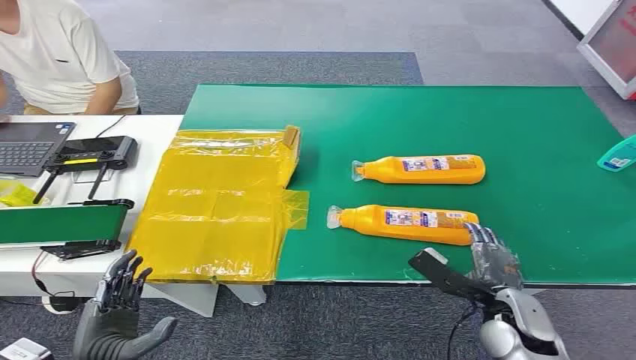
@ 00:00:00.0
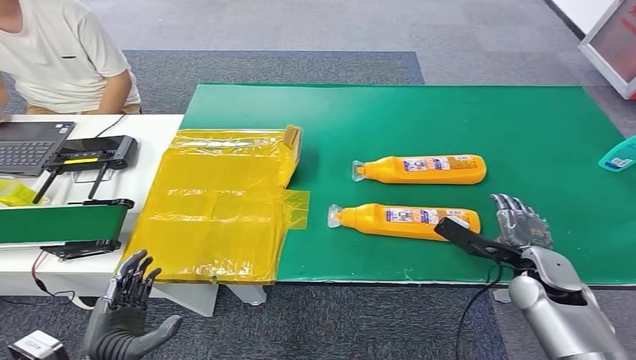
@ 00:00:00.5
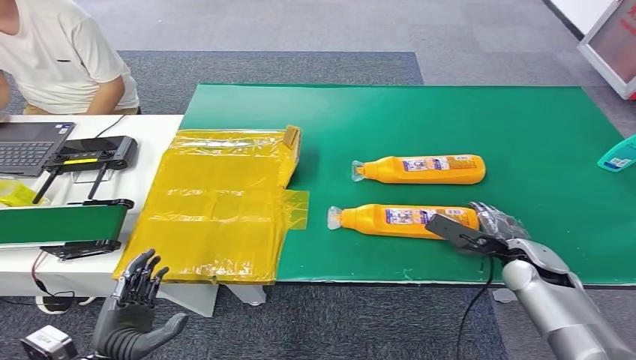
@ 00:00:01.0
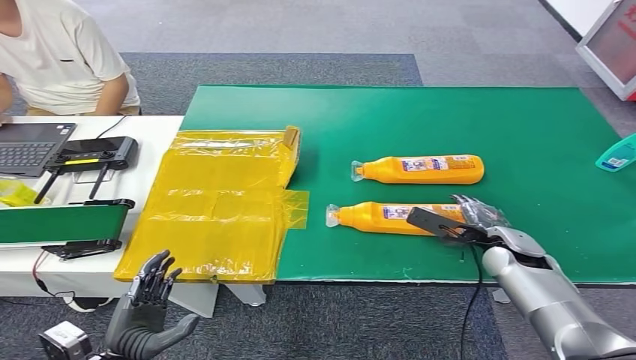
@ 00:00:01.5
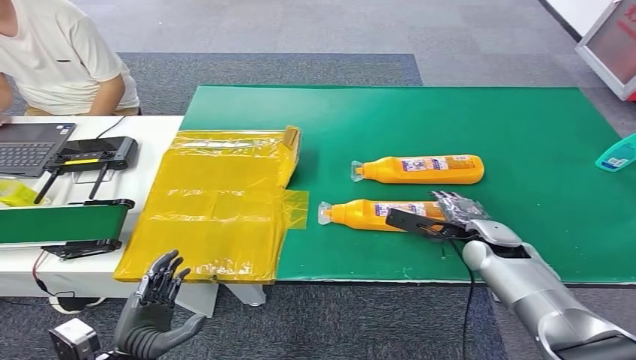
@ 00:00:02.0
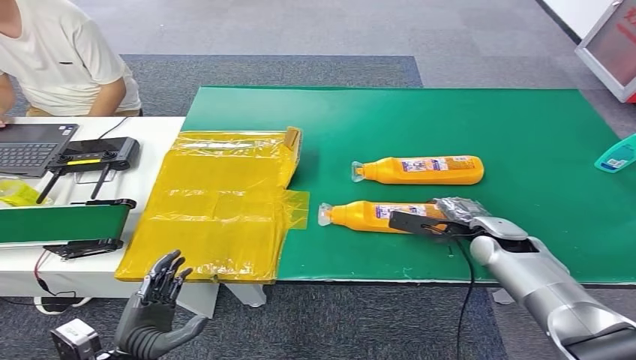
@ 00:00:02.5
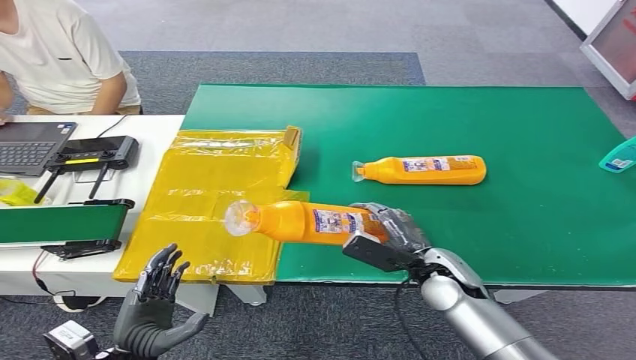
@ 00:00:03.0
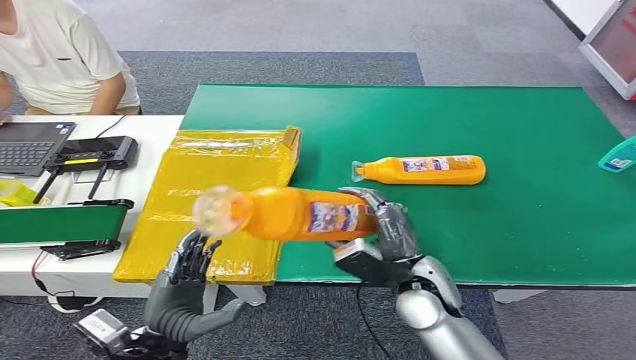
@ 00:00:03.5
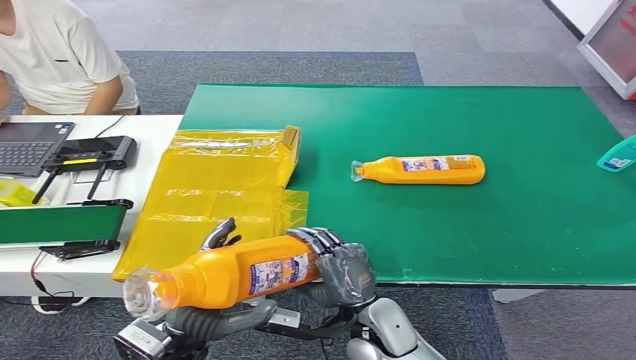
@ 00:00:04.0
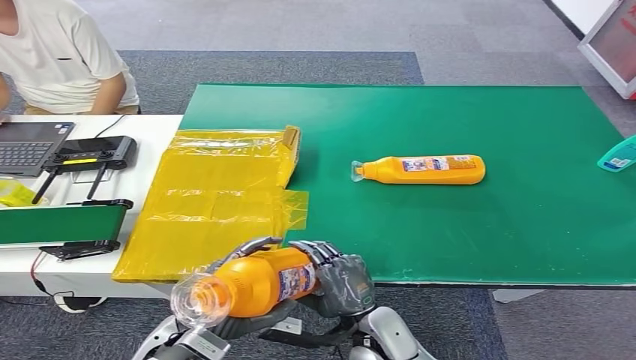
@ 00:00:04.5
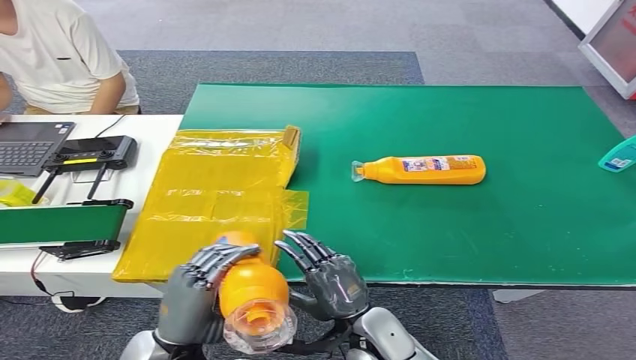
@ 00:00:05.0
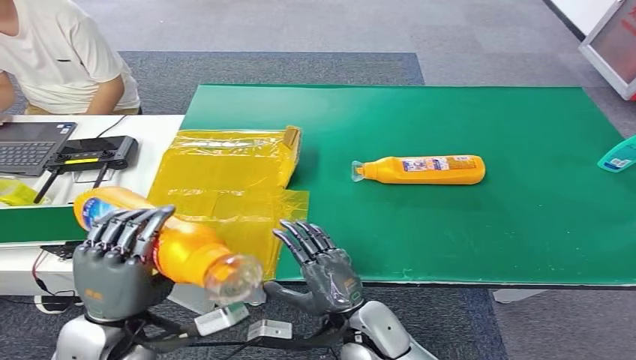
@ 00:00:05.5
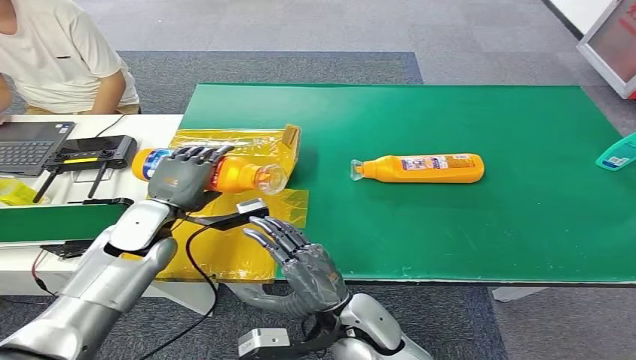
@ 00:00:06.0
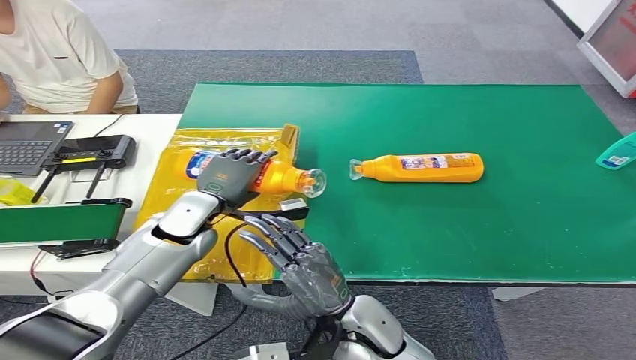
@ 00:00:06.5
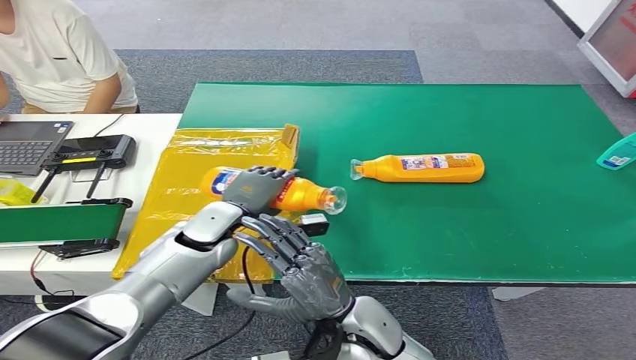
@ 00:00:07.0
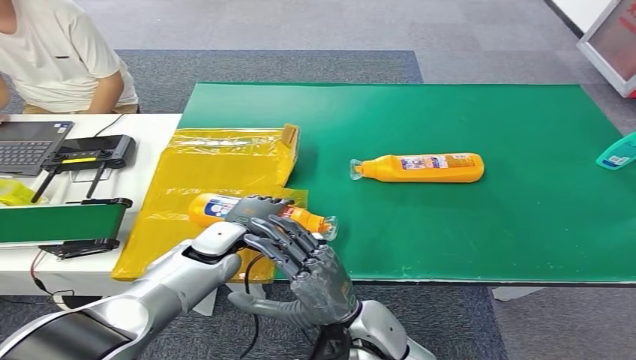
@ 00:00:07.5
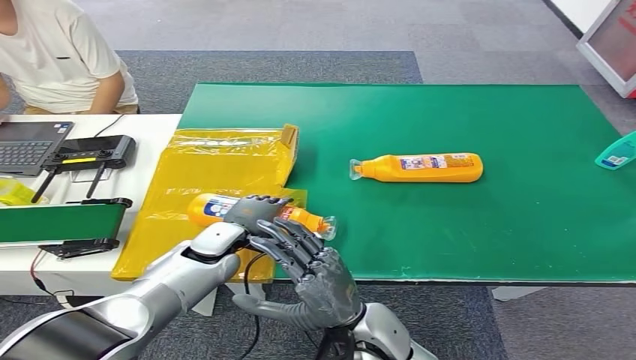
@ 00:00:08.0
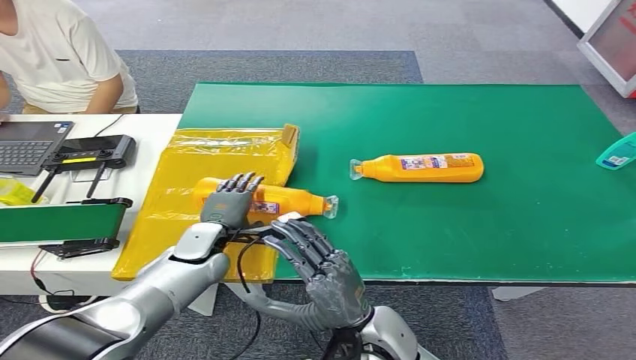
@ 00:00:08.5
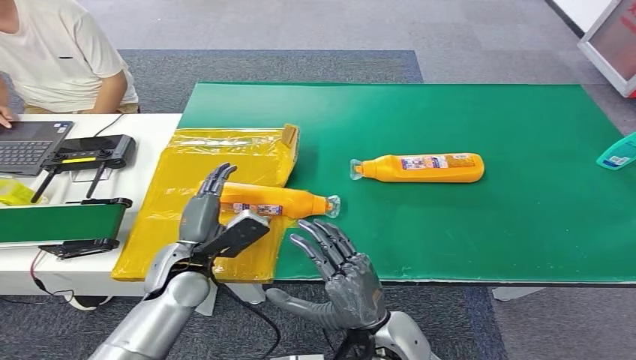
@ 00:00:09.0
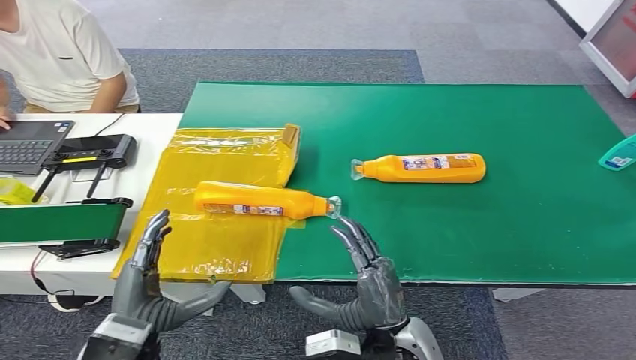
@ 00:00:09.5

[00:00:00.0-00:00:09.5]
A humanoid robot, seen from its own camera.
Step, 00:00:00.0 to 00:00:04.0: Pick up the bottle from the table.
Step, 00:00:05.5 to 00:00:09.5: Turn the bottle to the front side.
00:00:02.0 to 00:00:04.0: The right hand heads to the left and backward, covering approximately 25 cm; the left hand heads to the right and upward, covering some 10 cm.
00:00:04.0 to 00:00:05.5: The left hand is displaced to the left by roughly 5 cm.
00:00:07.5 to 00:00:09.5: The right hand is displaced to the right by about 5 cm. Meanwhile the left hand moves backward, some 20 cm.
